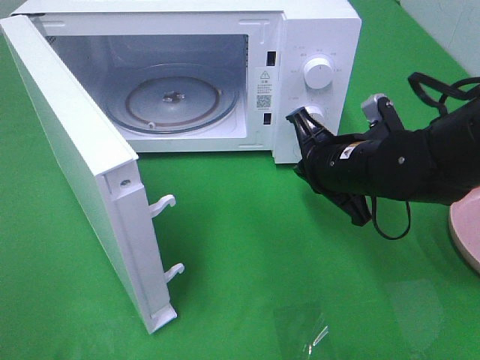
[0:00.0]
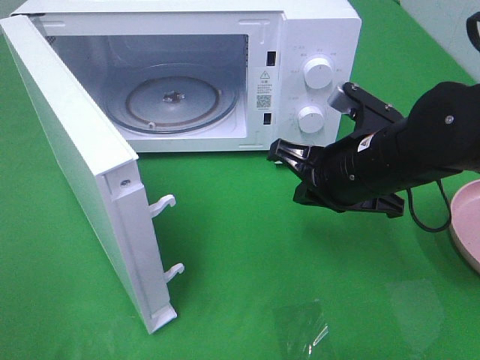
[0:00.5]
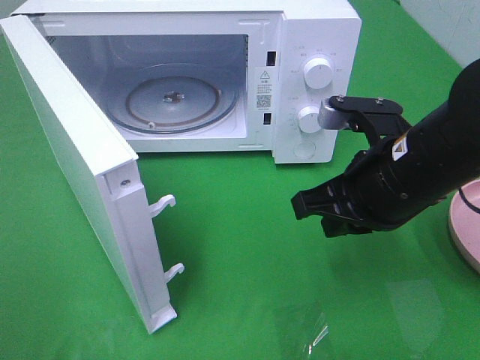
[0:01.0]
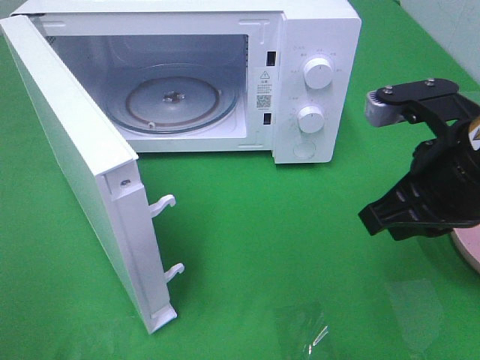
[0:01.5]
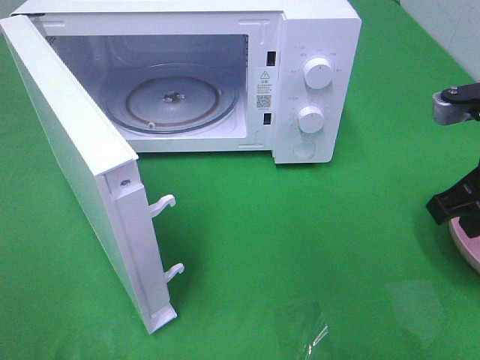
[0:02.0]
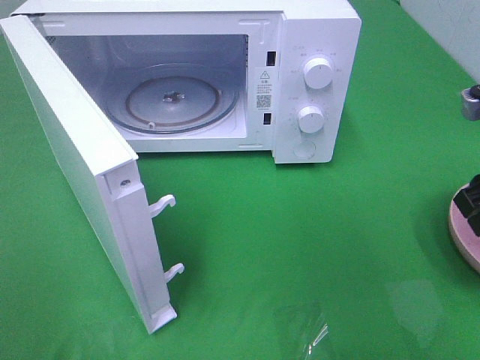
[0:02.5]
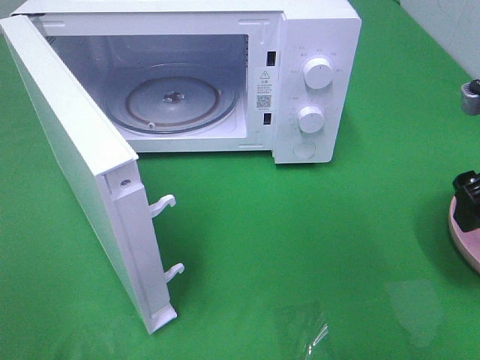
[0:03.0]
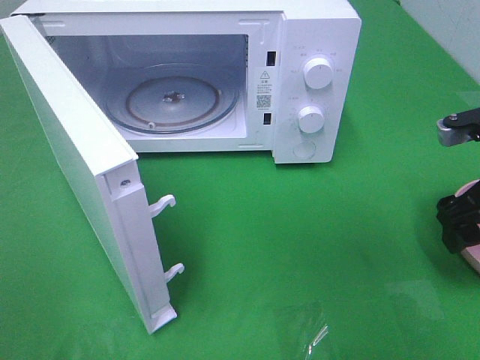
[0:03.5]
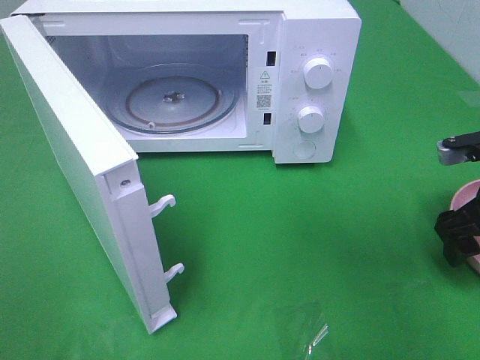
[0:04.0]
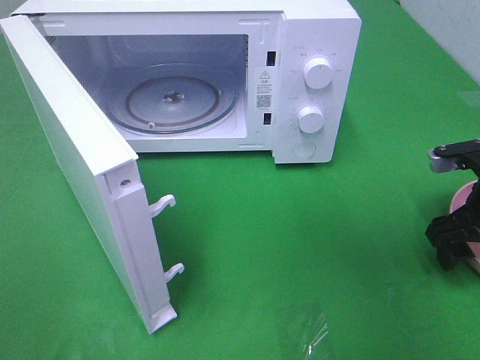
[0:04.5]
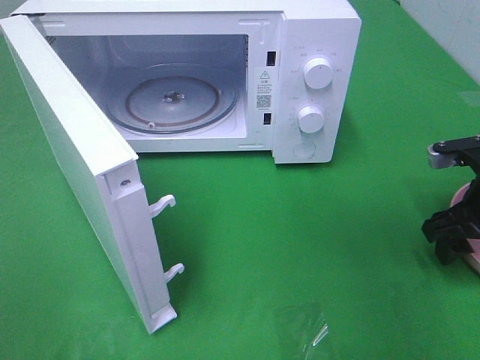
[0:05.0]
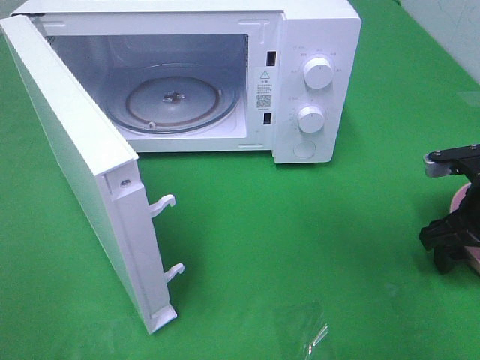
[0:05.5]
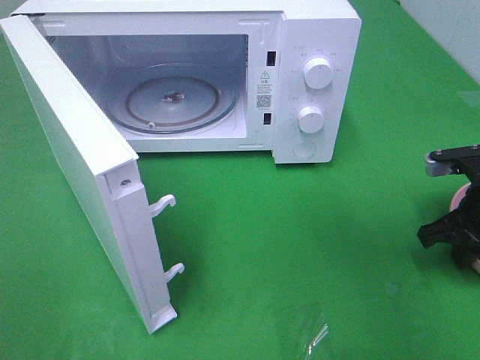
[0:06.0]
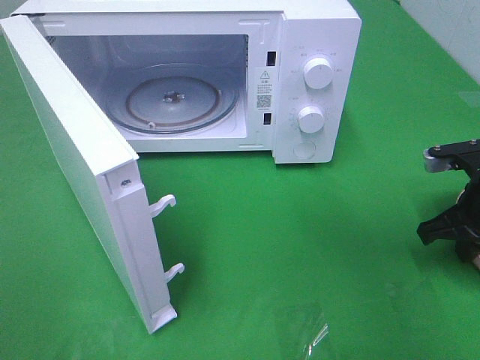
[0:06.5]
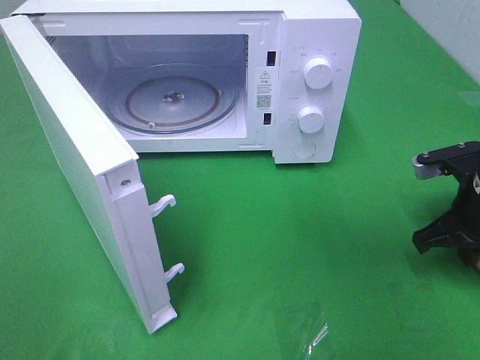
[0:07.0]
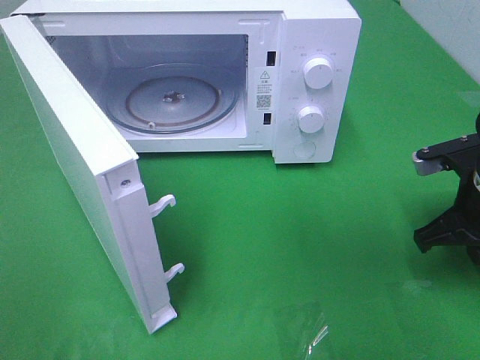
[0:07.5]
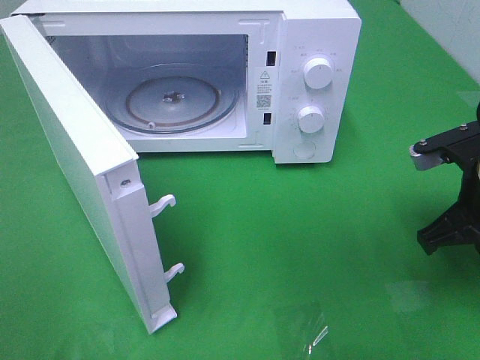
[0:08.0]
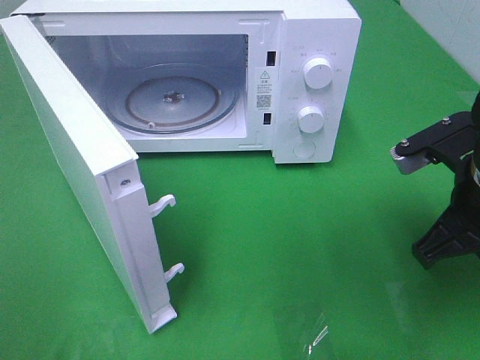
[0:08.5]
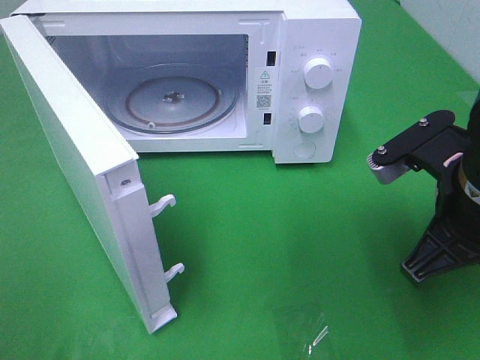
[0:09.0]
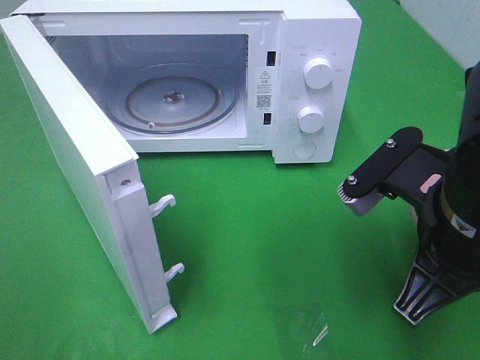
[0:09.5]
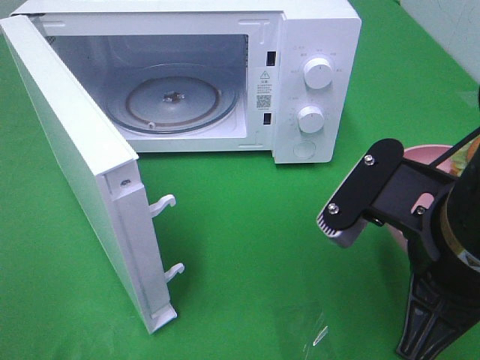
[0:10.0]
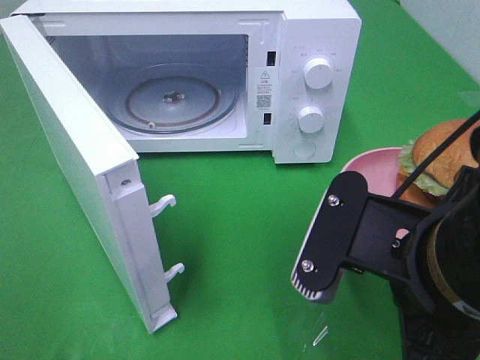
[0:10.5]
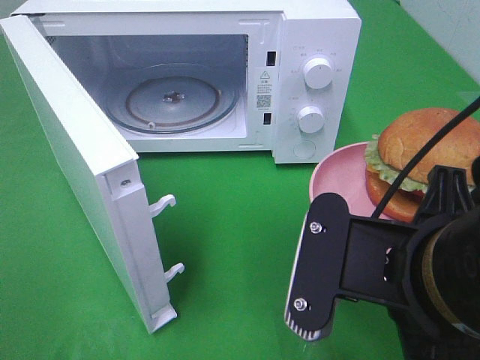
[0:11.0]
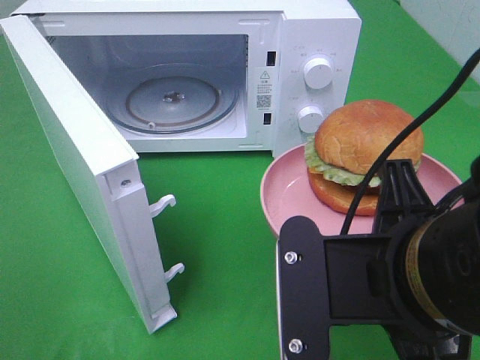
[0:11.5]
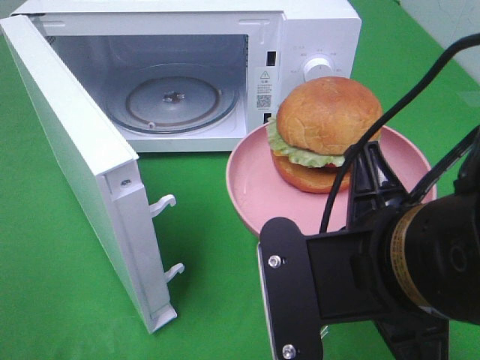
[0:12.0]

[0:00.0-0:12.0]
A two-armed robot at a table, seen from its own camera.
Task of the whole recording: Heat the burger.
Step, 0:00.0 to 0:06.0: Right hand: grab the plate with the hamburger.
0:00.0 to 0:02.0: The right gripper shifts approximately 15 cm to the right, upward and backward.
0:02.0 to 0:04.0: The right gripper goes about 10 cm downward, and opens up.
0:04.0 to 0:06.0: The right gripper closes up.
0:06.0 to 0:08.0: The right gripper travels upward by approximately 5 cm.
0:08.0 to 0:10.0: The right gripper moves to the left, backward and upward, some 15 cm.

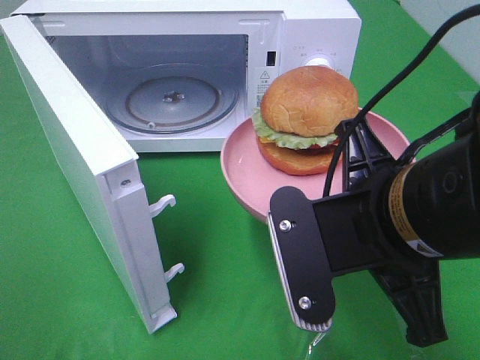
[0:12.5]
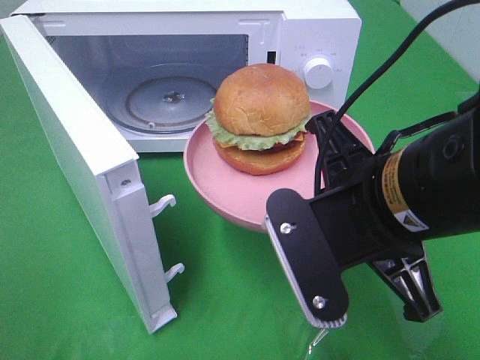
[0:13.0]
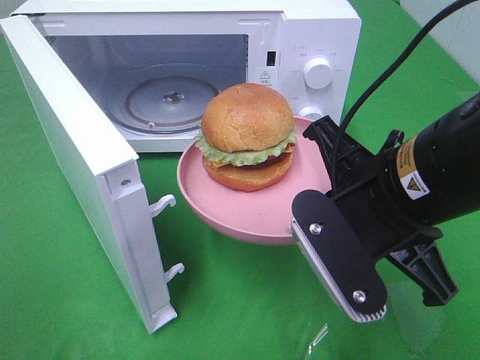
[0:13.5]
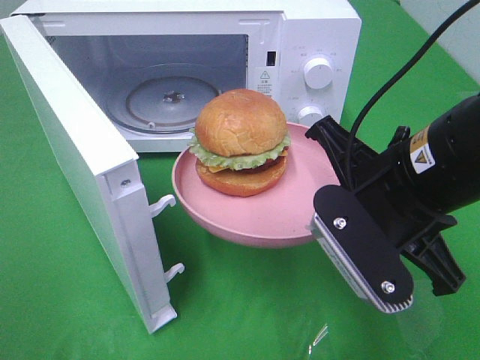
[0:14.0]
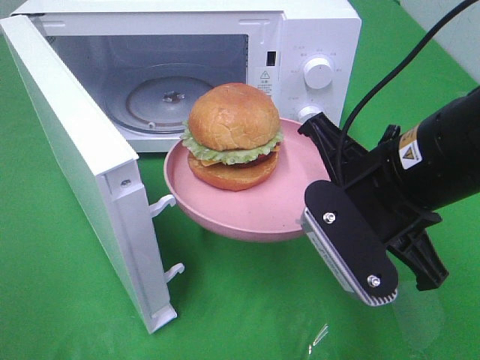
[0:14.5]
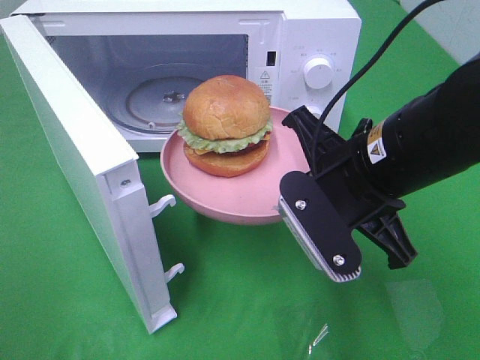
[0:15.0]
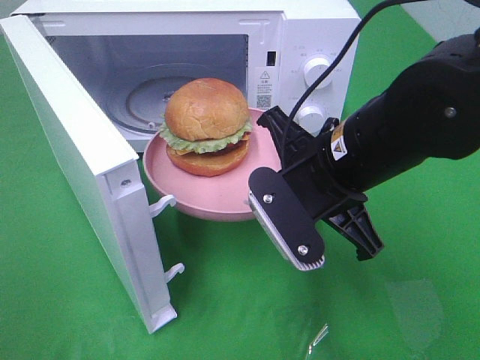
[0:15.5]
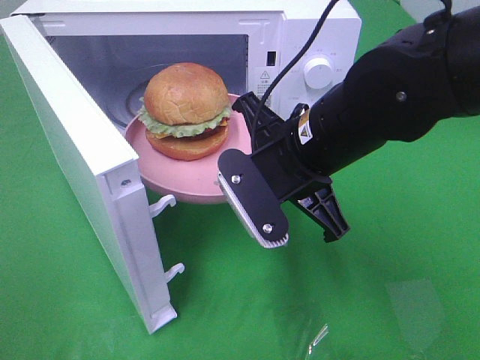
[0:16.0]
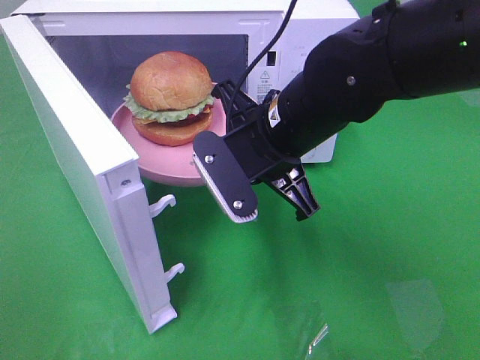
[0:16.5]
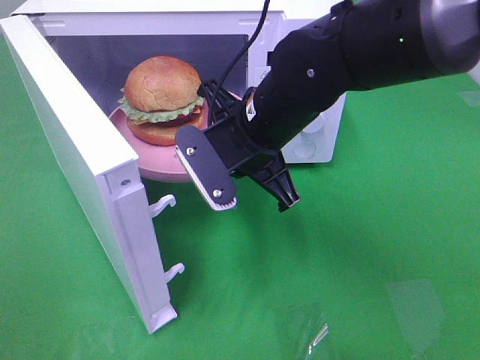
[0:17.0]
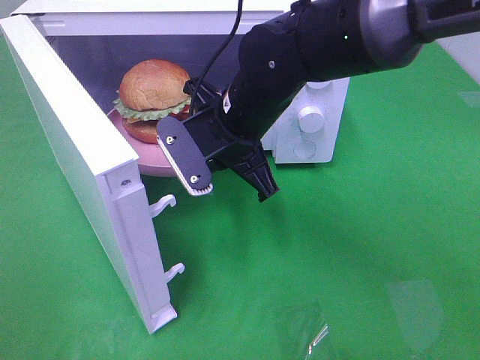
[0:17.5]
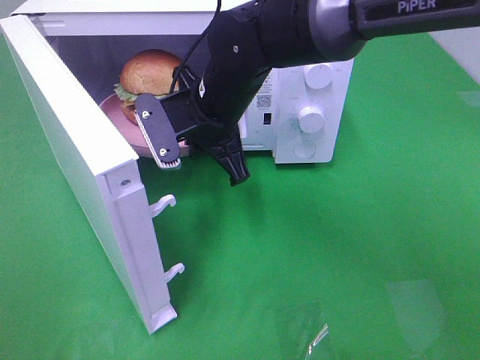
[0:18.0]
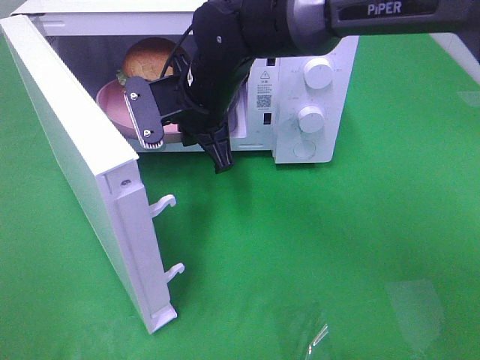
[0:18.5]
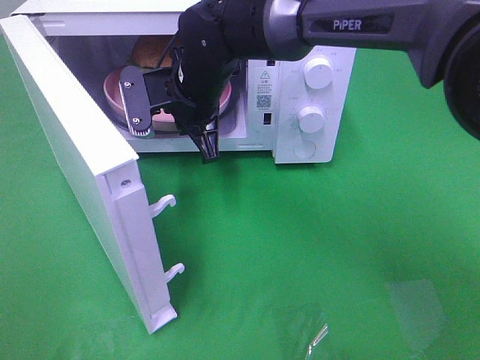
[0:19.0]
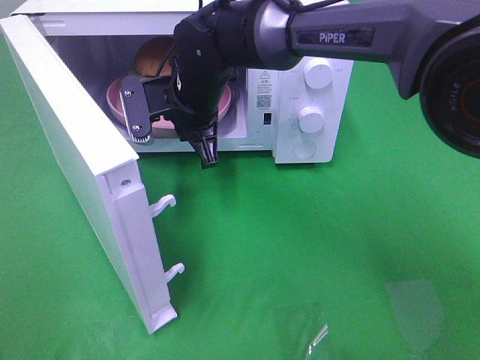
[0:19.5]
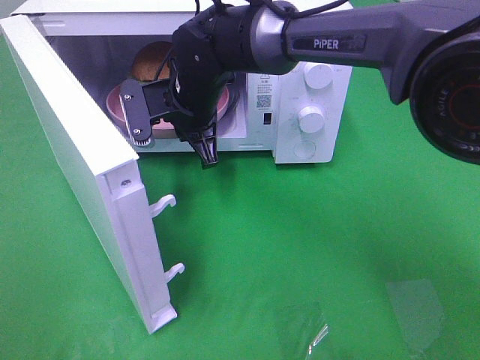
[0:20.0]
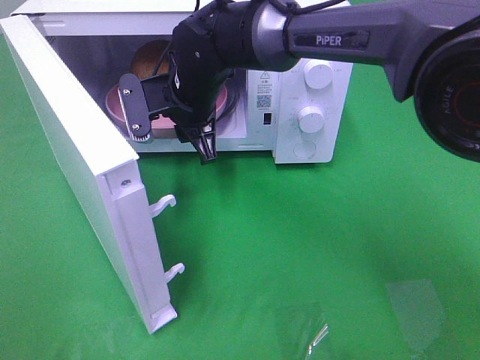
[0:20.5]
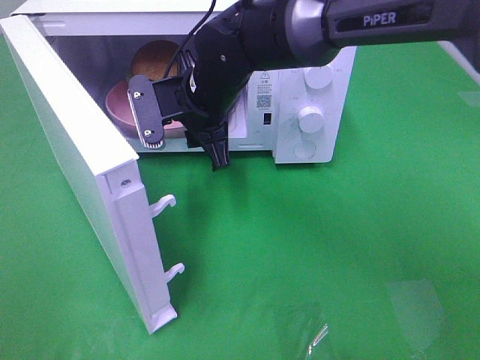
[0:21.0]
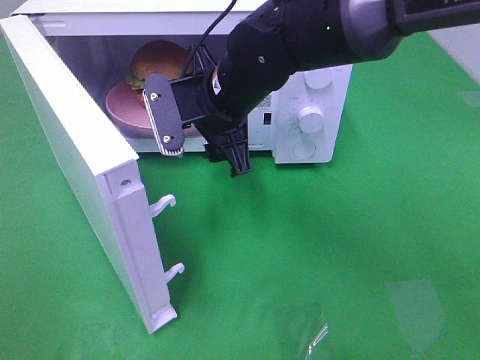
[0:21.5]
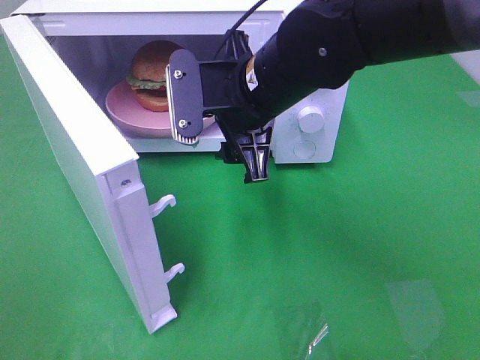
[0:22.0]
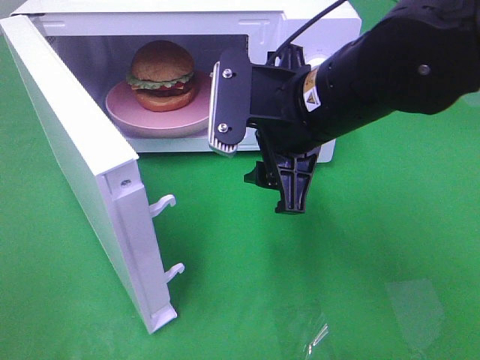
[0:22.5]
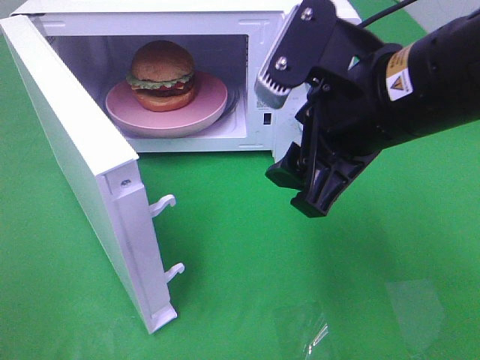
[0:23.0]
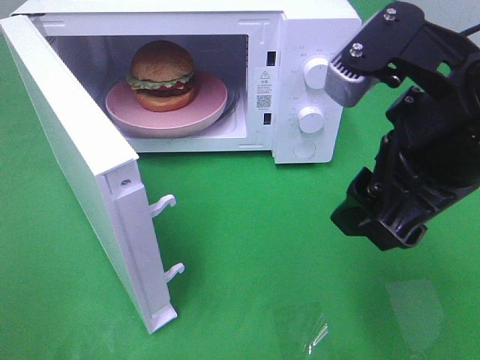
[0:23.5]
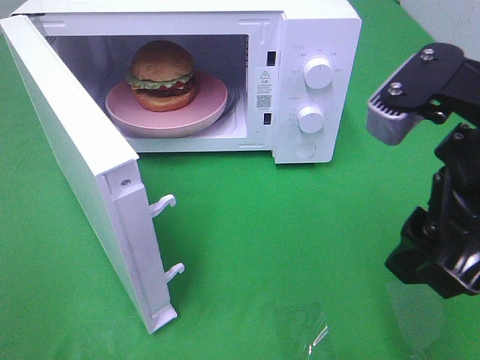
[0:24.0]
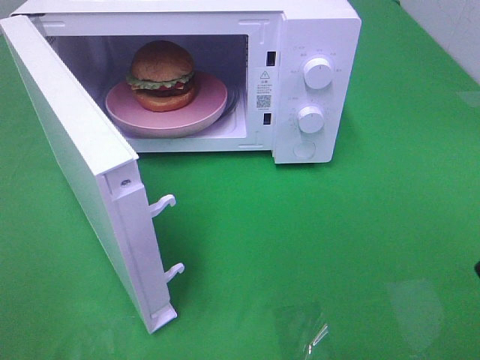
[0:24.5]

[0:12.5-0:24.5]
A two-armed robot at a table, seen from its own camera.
Task of the whole recording: Heat the burger.
Step, 0:12.5 to 0:20.0: Right hand: place the plate in the microwave.
0:12.5 to 0:14.5: The right gripper is displaced forward by approximately 5 cm.
0:14.5 to 0:16.5: The right gripper moves forward and to the left, some 10 cm.
0:16.5 to 0:18.5: The right gripper is displaced forward and to the left by roughly 10 cm.
0:18.5 to 0:20.5: The right gripper opens up.
0:20.5 to 0:22.5: The right gripper moves backward, to the right and upward, about 20 cm.
0:22.5 to 0:24.5: The right gripper goes approximately 25 cm backward, to the right and upward.

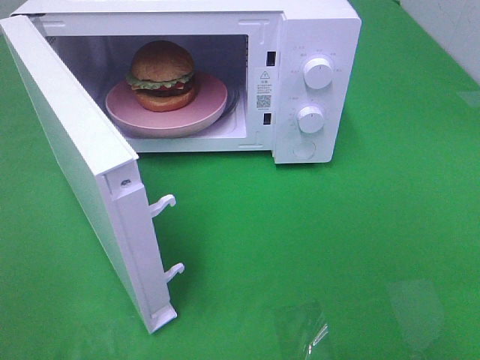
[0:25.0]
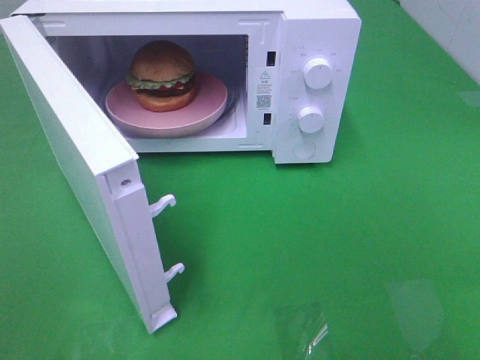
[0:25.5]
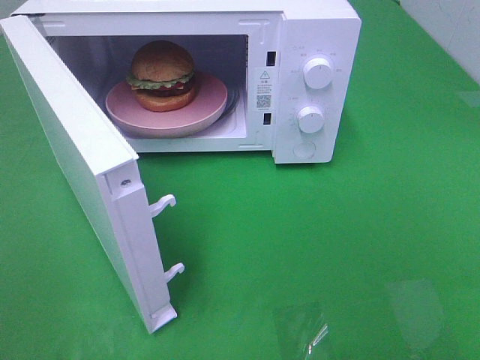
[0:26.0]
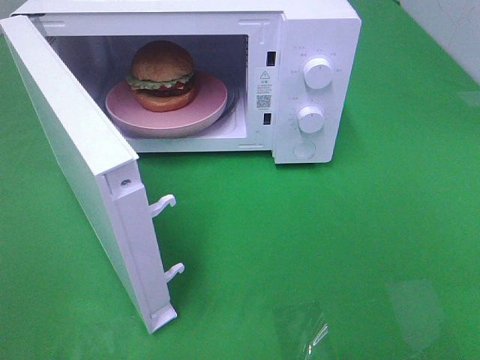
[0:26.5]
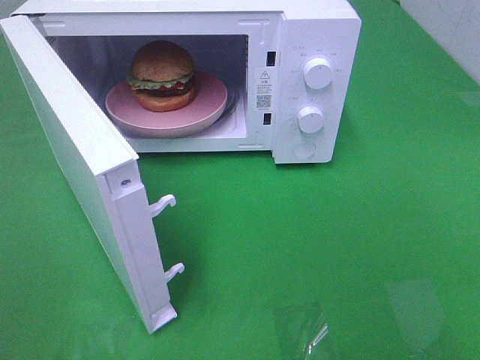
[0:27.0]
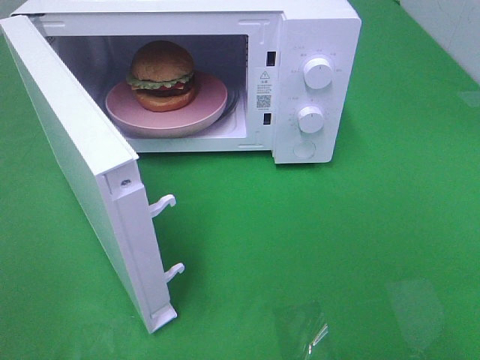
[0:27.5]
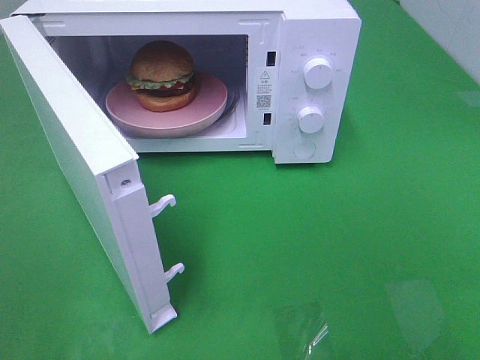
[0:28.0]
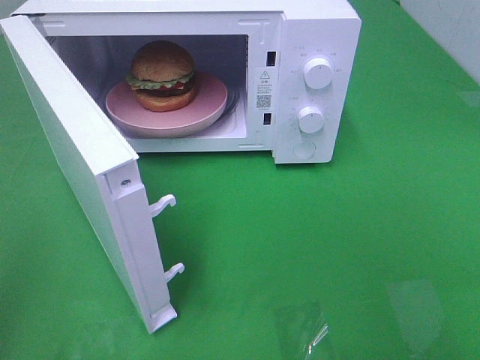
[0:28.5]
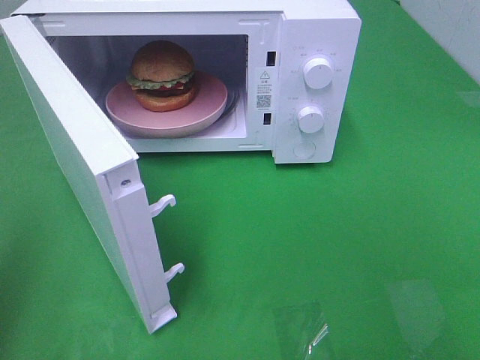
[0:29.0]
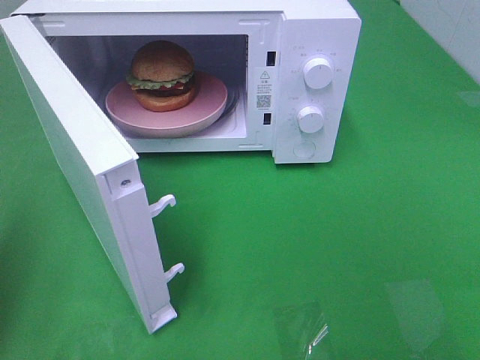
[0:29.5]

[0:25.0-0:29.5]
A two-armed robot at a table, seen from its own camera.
Task of the whole recording: Heat the burger.
0:27.0 to 0:29.5: The left gripper heads forward, covering about 15 cm, and closes up.
